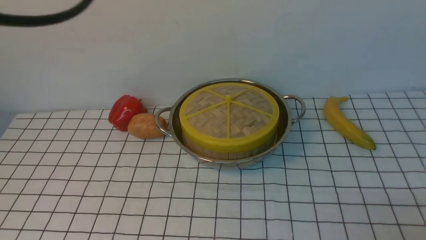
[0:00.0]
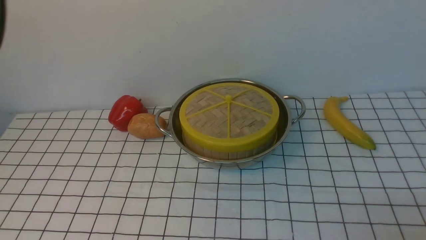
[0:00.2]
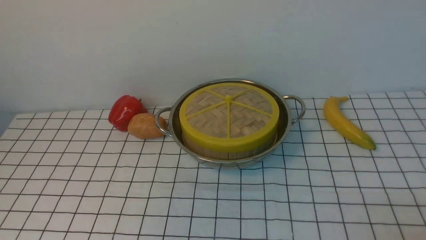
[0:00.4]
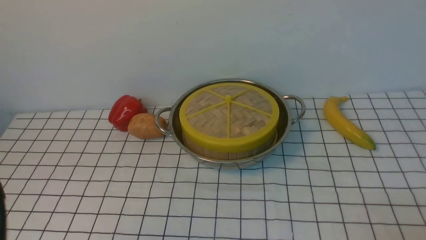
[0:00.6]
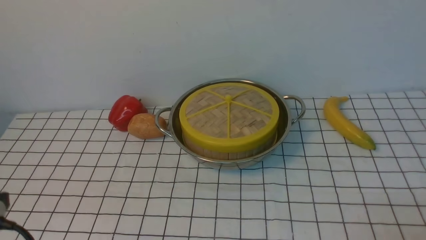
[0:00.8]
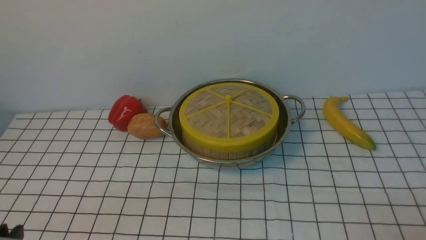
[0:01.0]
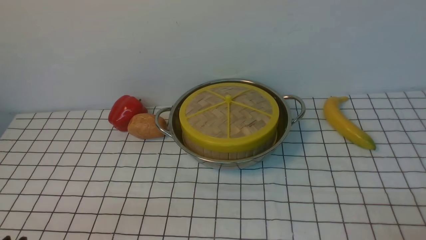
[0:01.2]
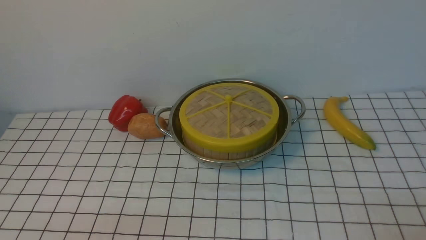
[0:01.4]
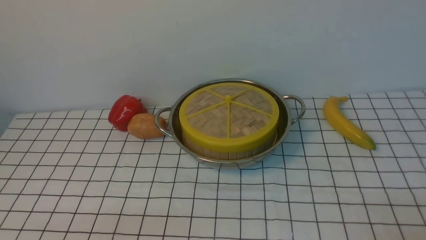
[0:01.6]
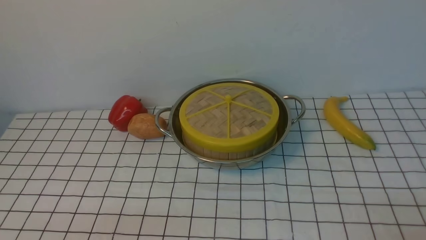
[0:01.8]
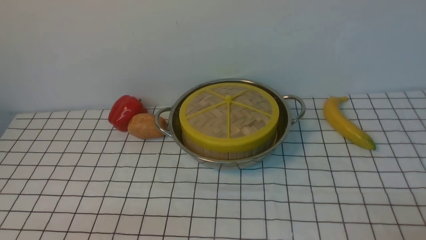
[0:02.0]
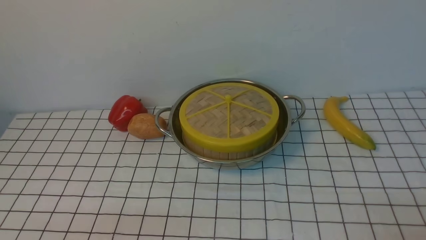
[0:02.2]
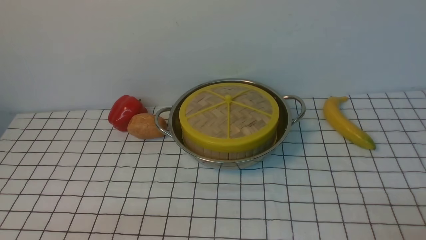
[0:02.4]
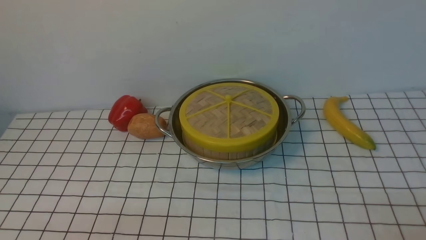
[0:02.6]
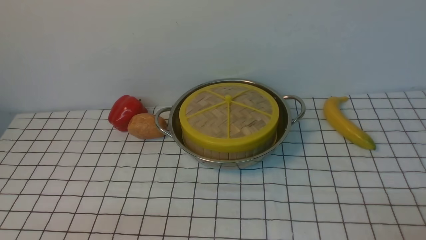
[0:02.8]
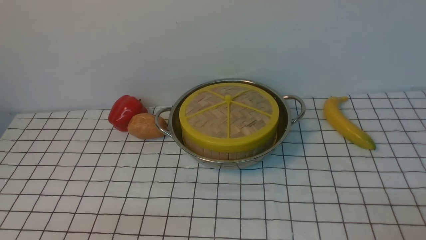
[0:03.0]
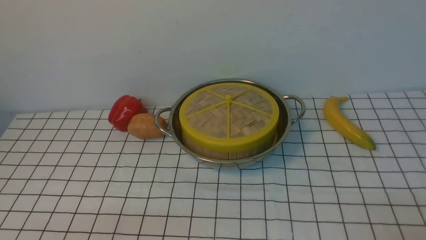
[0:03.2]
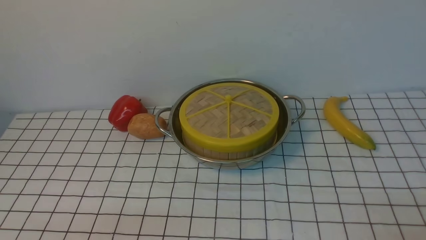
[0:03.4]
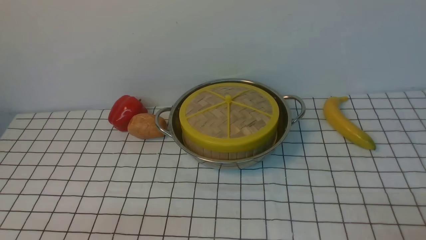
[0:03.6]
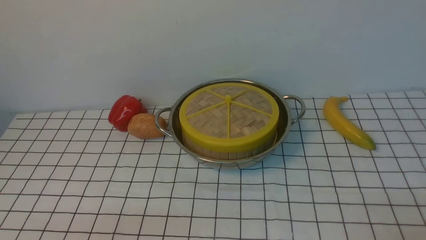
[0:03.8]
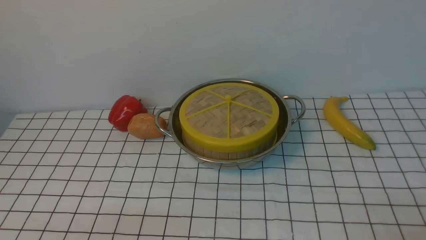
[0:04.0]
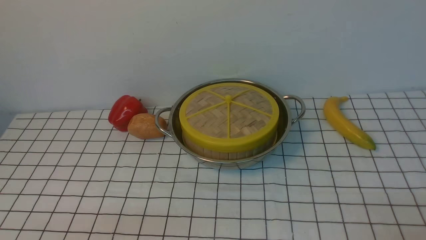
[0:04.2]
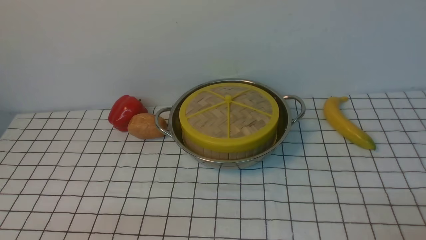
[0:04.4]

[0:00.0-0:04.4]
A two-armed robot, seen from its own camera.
Task of the whole recording: place the steamer in the pot on the white tablecloth, and put the lid on the steamer.
0:00.0 to 0:01.4: The left gripper heads downward and backward, covering approximately 40 cm.
0:01.4 to 0:04.4: Neither gripper changes place.

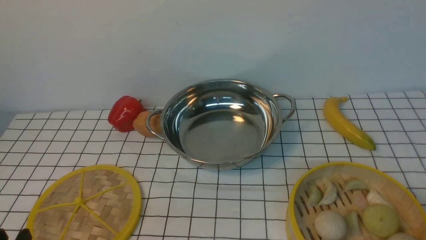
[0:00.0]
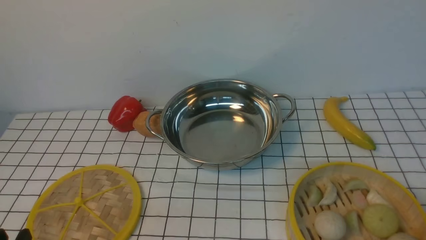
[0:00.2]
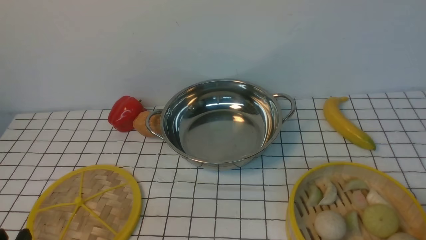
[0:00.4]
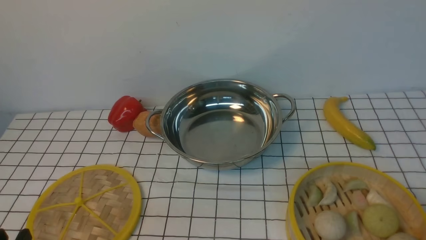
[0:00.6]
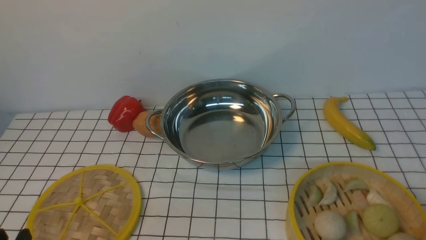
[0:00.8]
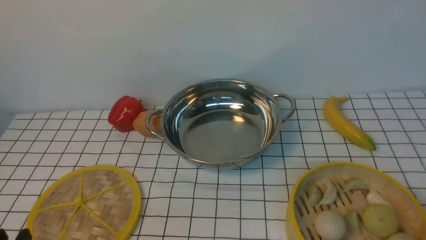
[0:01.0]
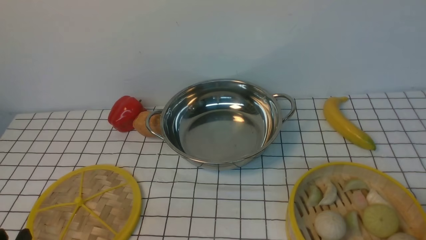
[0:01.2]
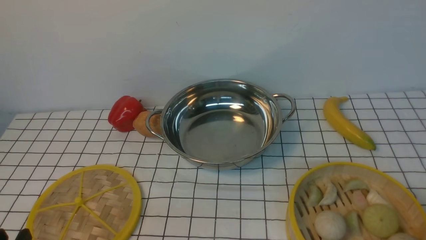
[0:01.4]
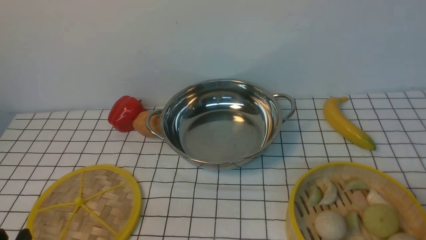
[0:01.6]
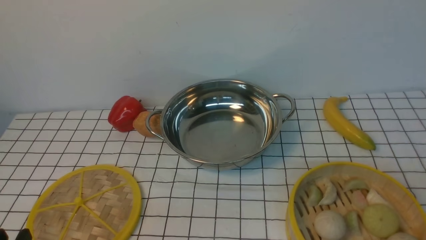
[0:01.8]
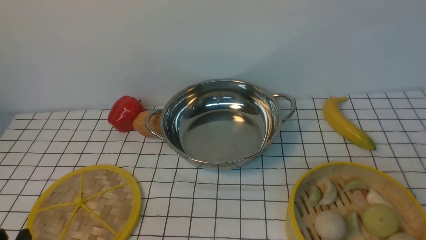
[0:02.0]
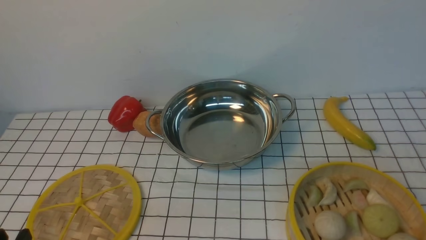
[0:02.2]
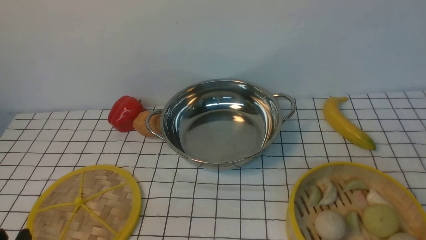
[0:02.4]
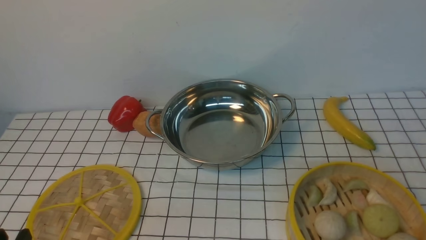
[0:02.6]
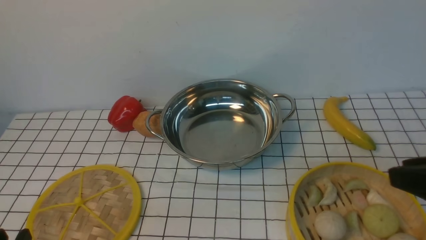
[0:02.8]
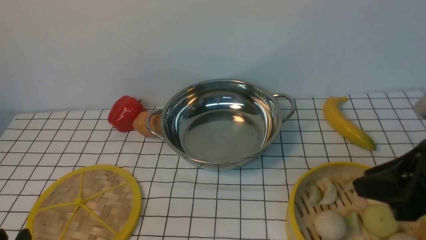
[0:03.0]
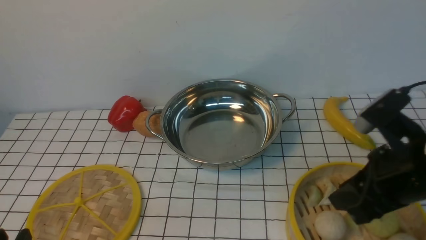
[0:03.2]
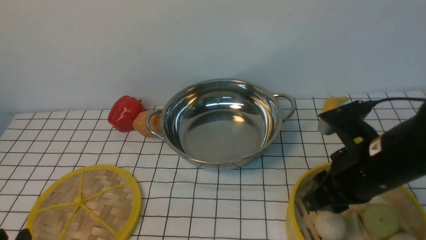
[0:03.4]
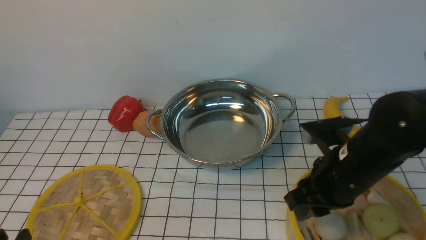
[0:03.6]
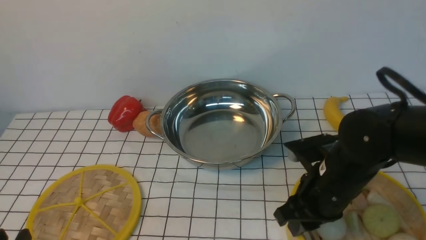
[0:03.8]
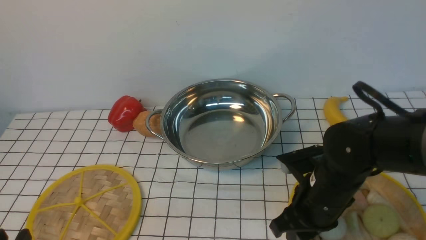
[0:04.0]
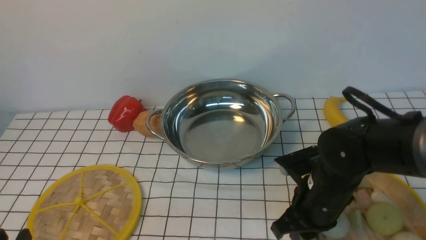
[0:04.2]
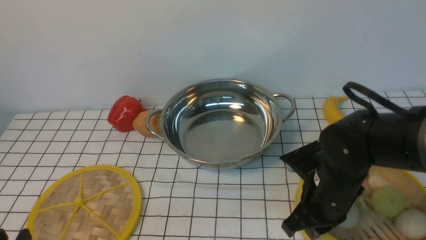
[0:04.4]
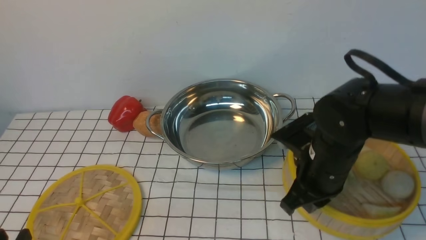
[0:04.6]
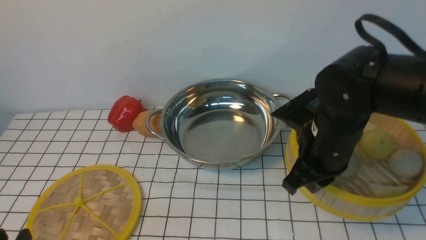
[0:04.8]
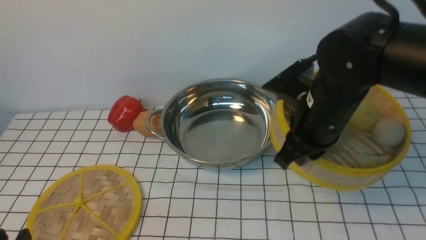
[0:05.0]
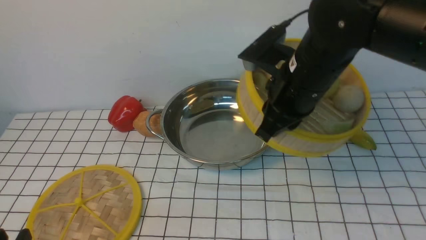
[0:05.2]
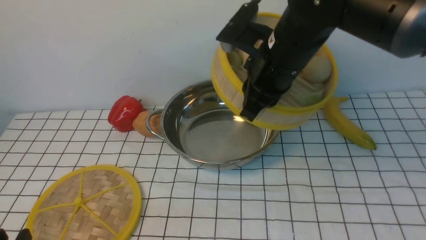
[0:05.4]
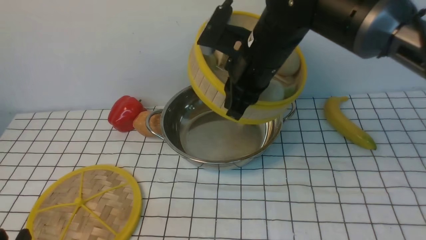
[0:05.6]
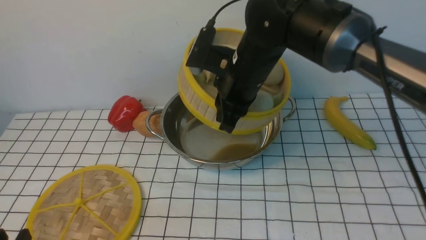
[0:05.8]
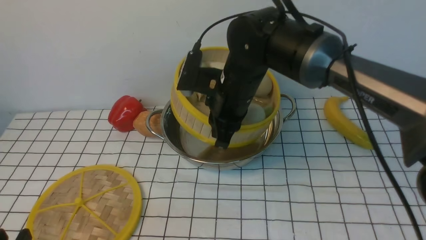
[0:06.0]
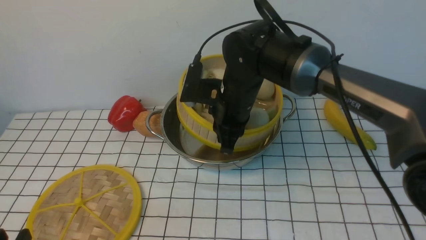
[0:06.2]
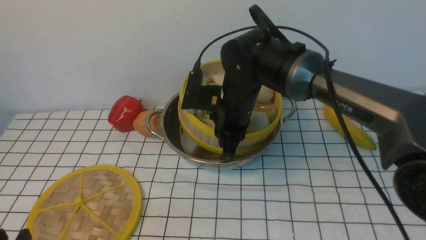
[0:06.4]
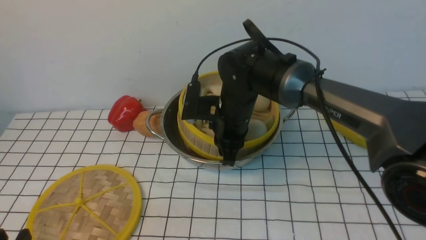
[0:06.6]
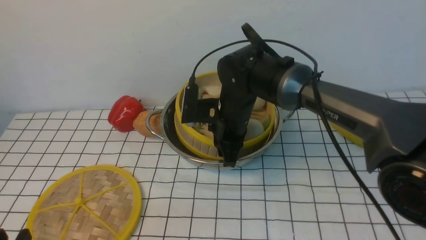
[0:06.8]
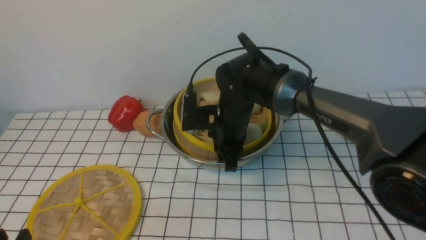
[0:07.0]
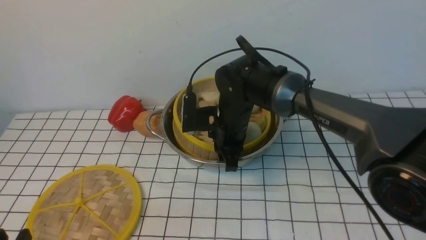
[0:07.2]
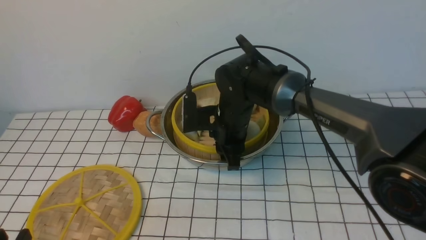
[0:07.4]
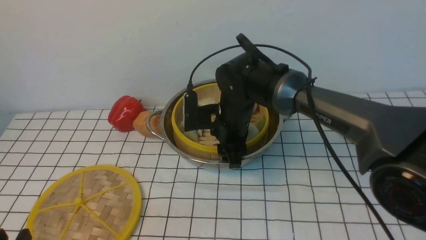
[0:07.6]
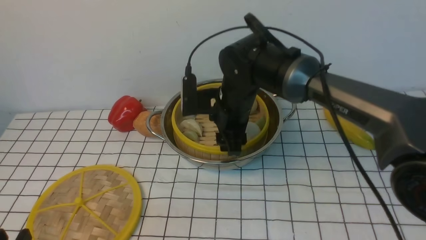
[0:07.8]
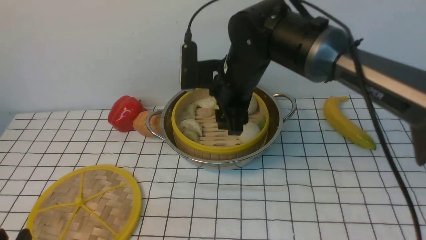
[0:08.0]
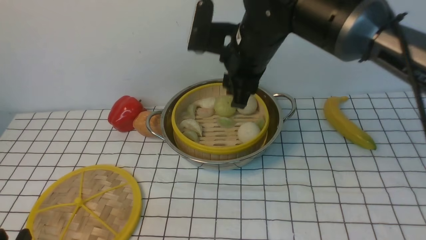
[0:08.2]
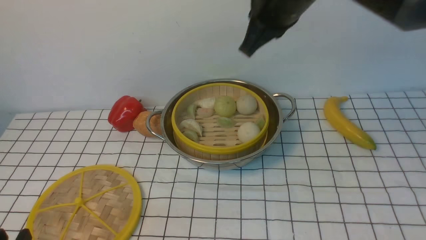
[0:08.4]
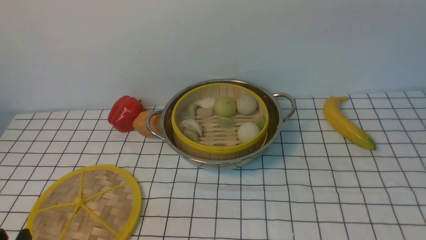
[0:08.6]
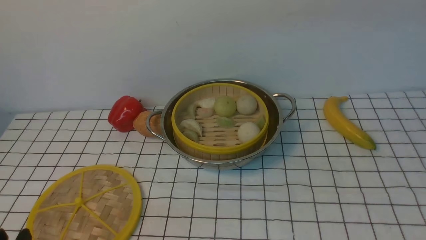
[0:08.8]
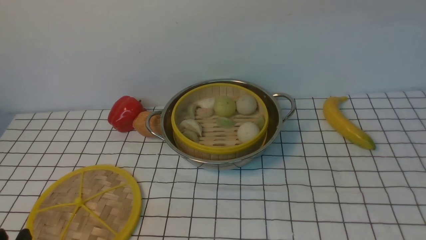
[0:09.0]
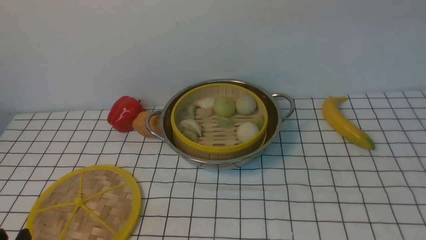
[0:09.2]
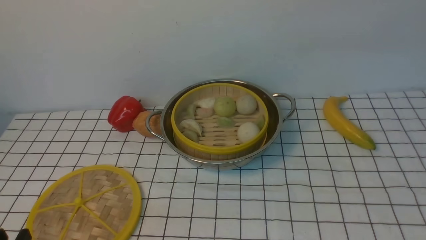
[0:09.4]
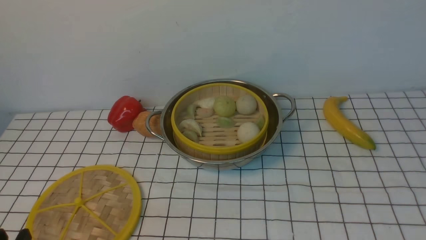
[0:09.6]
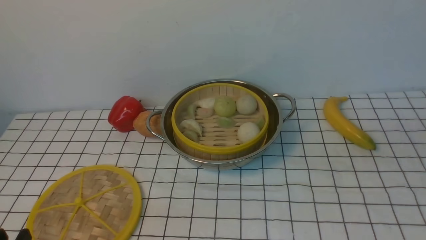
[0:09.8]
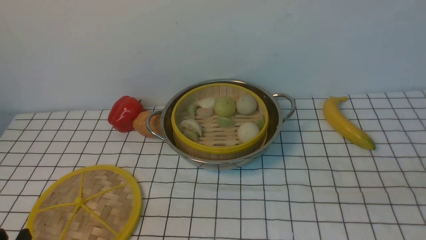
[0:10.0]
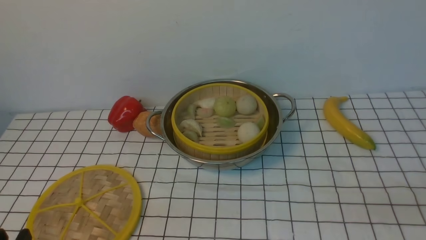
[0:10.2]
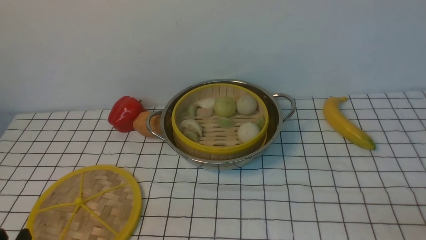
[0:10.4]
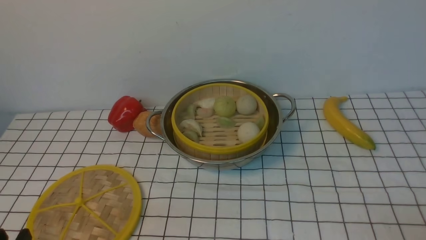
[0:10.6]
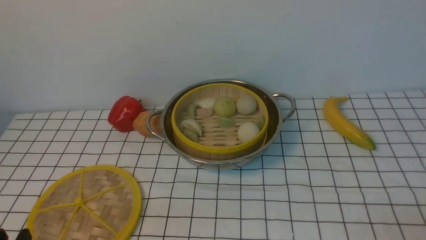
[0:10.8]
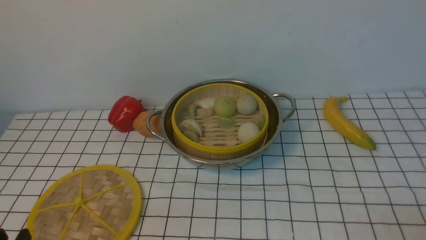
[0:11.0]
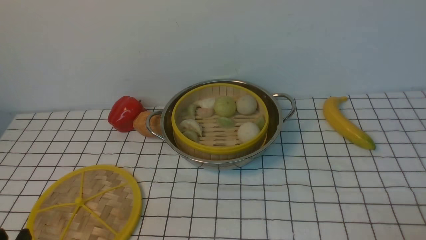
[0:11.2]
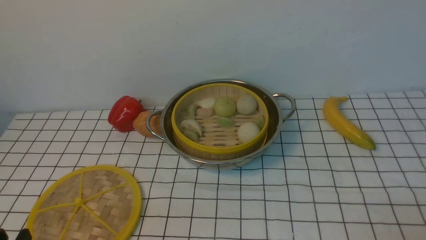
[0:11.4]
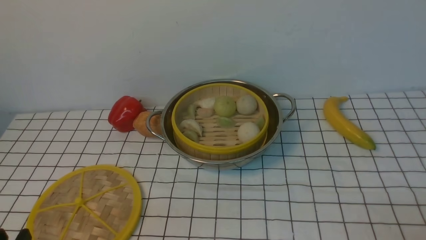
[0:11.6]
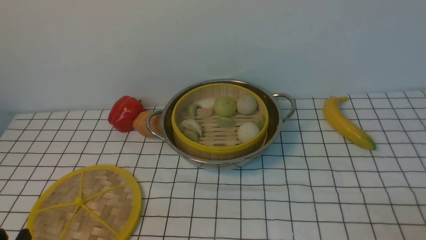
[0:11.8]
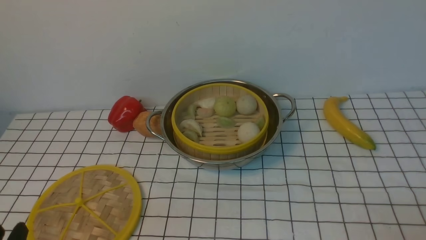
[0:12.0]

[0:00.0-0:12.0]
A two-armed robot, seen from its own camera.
Task of the whole recording: place the steamer in the pot on the white tablecloth, and put the lid on the steamer.
Step, 0:00.0 to 0:04.6: use the right arm to lift the steamer closest to it.
Step, 0:04.8 to 0:07.8: use the right arm to put the steamer into the iron steamer pot in the middle.
0:01.6 to 0:03.0: The right gripper moves forward, to the left and upward, about 15 cm.
0:03.0 to 0:04.4: The right gripper moves downward, to the left and forward, some 15 cm, and closes.
0:04.4 to 0:06.0: The right gripper is displaced forward, to the left and upward by roughly 20 cm.
0:06.0 to 0:07.6: The right gripper goes some 5 cm downward, and opens.
0:07.6 to 0:09.0: The right gripper is displaced upward and to the right by some 35 cm, and closes.
